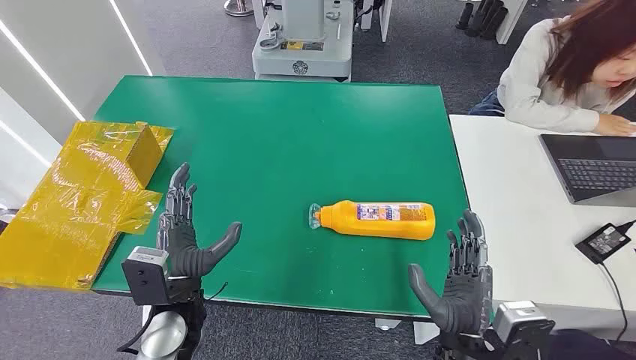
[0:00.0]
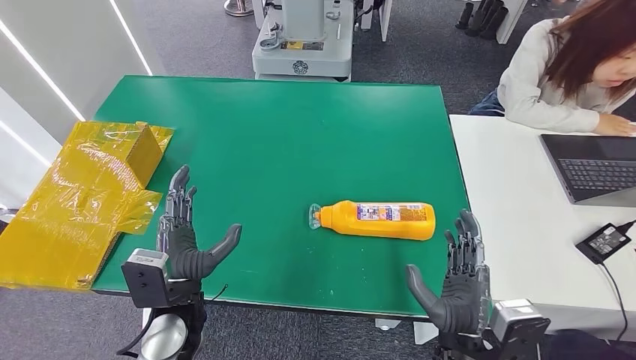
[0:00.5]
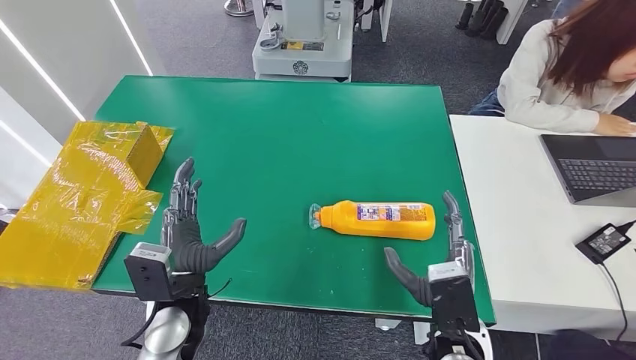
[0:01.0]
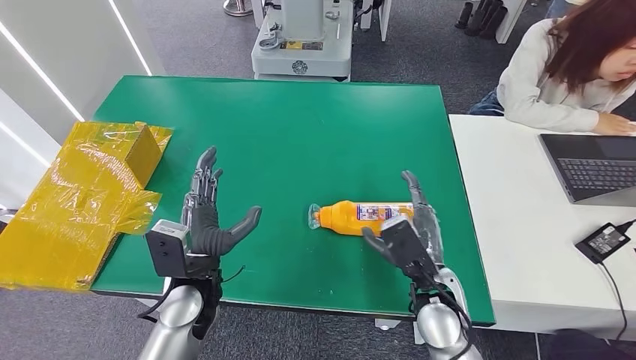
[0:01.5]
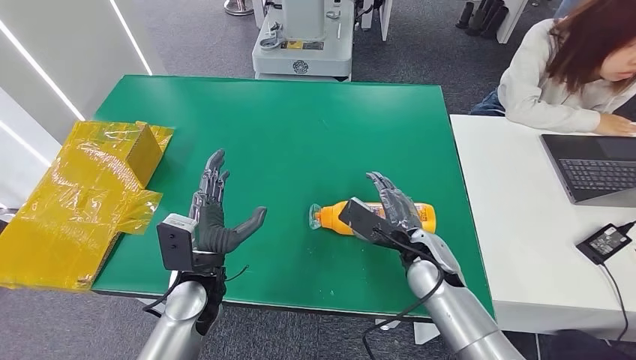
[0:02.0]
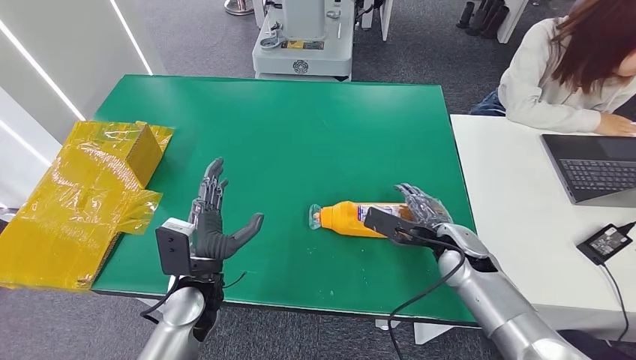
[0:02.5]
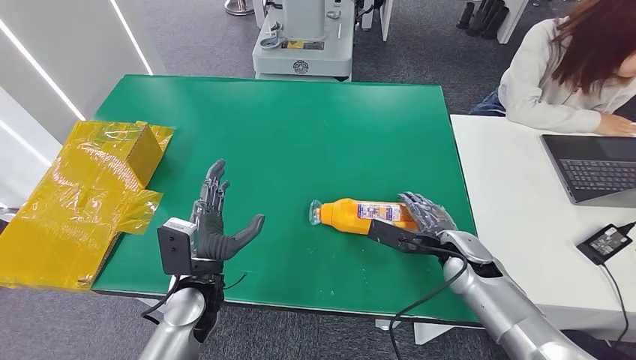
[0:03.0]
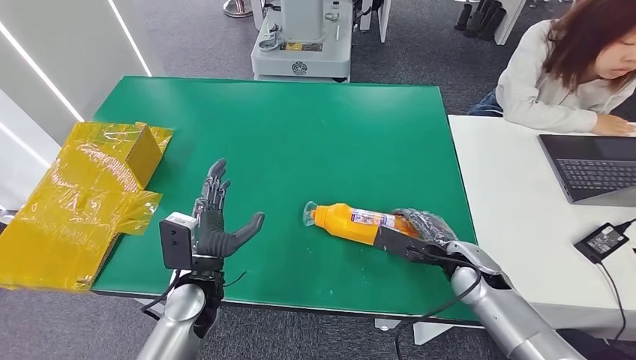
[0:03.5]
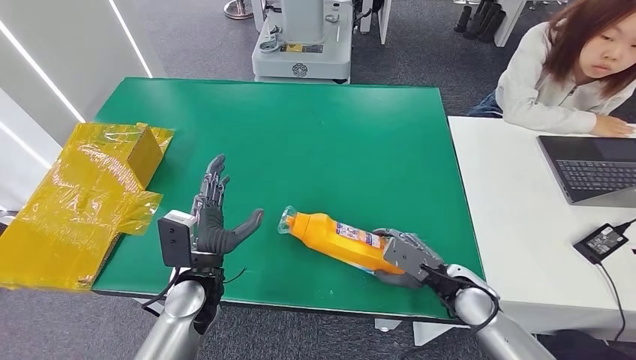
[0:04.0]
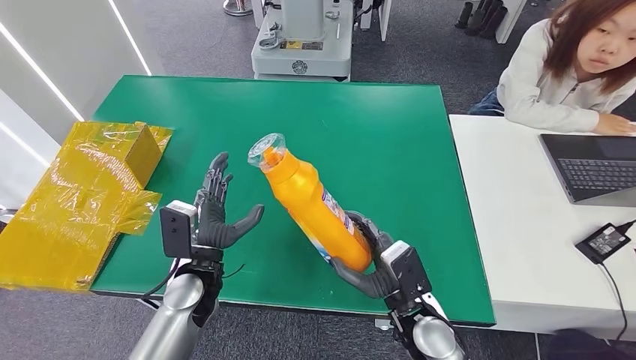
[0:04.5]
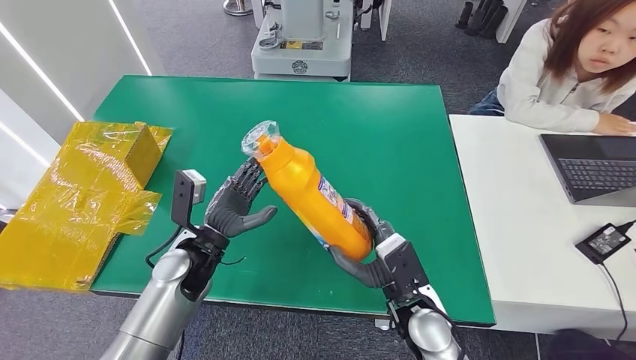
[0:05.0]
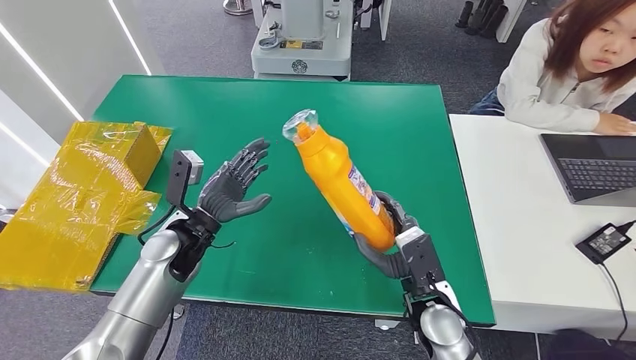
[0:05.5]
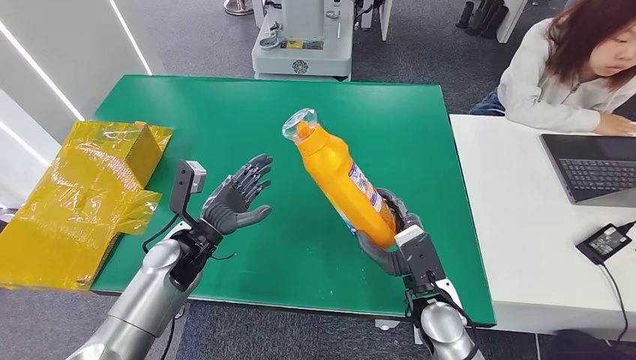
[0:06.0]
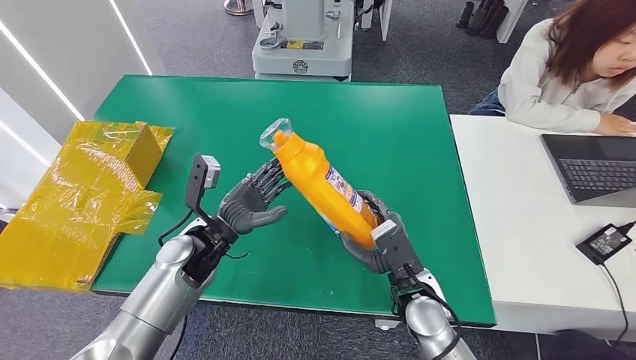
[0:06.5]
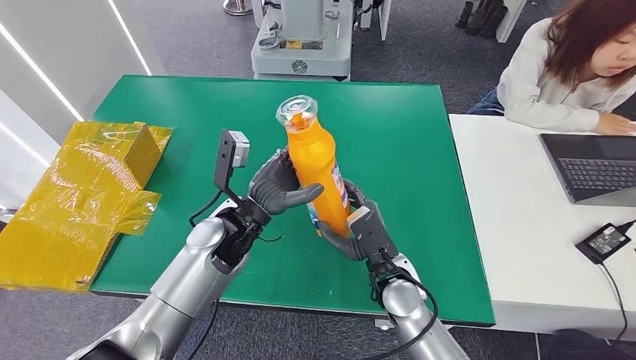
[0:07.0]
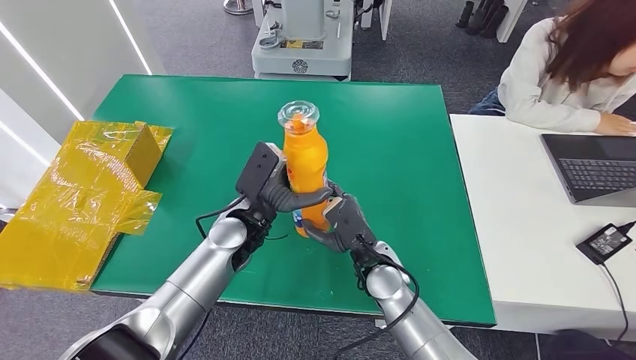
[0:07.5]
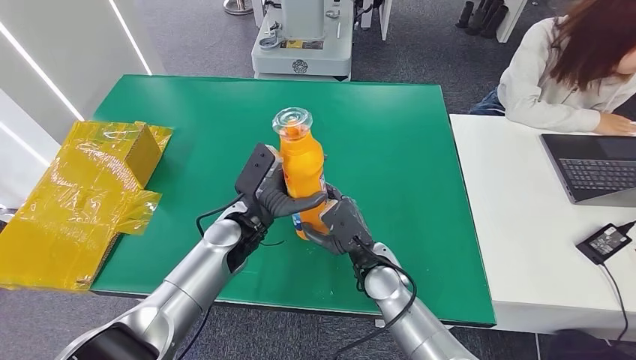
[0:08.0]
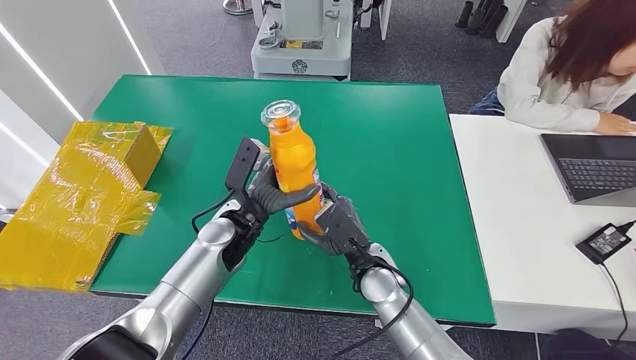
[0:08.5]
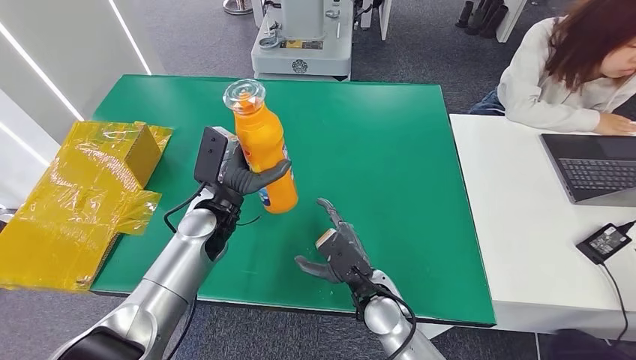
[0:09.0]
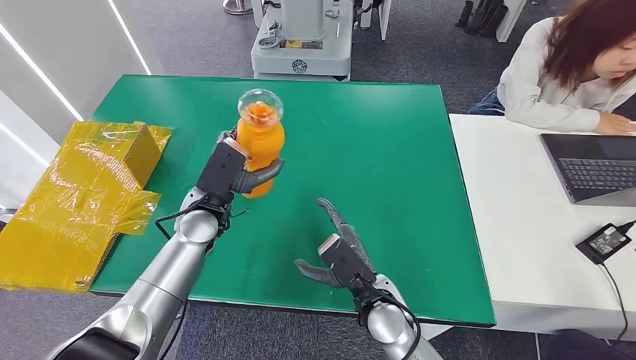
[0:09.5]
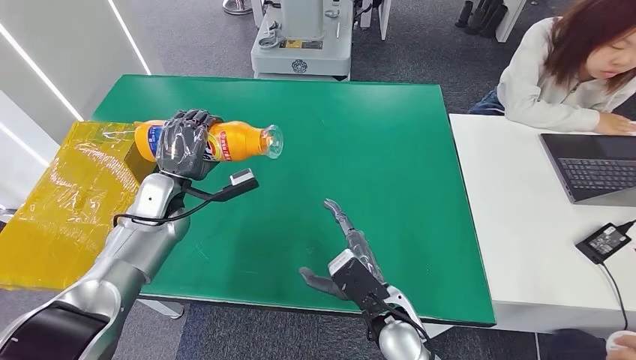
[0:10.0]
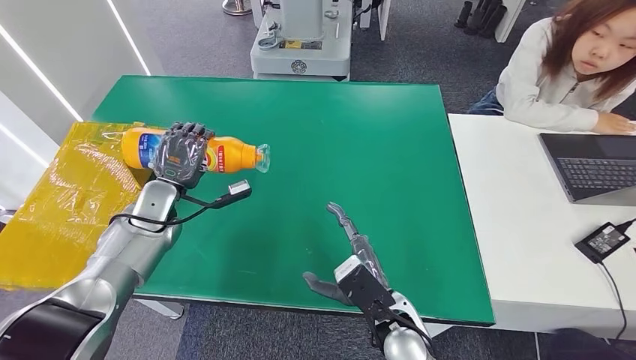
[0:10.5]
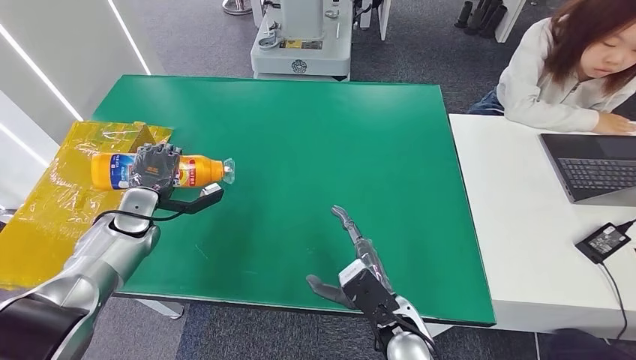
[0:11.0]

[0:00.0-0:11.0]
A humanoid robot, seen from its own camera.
Step, 0:00.0 to 0:05.0: Pick up the bottle from the table.
Step, 0:05.5 to 0:11.0: Turn the bottle to the front side.
0:02.0 to 0:03.5: The right hand travels to the right by roughly 10 cm.
0:03.5 to 0:05.5: The left hand shifts some 10 cm forward. The right hand shifts about 15 cm to the left and backward.
0:05.5 to 0:07.5: The left hand travels to the right by some 10 cm, while the right hand goes roughly 10 cm to the left and forward.
0:07.5 to 0:09.0: The right hand ends up approximately 5 cm from where it was. Meanwhile the left hand is displaced to the left by some 5 cm.
0:09.0 to 0:11.0: The right hand shifts some 5 cm backward. The left hand heads to the left, covering about 20 cm.

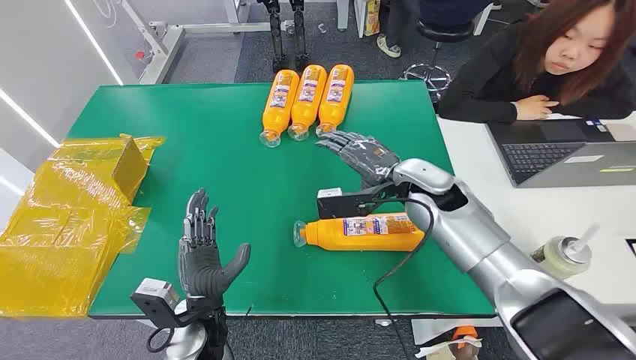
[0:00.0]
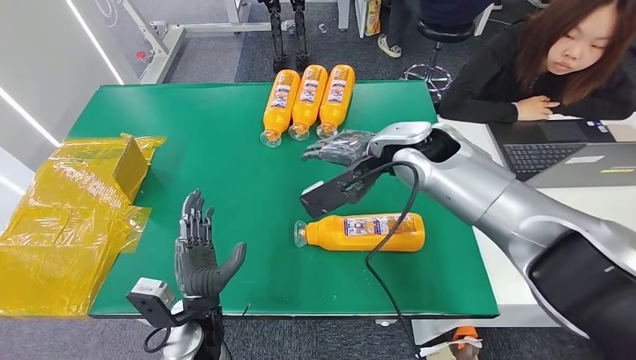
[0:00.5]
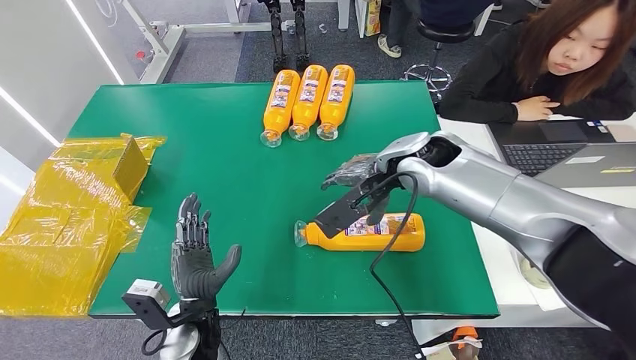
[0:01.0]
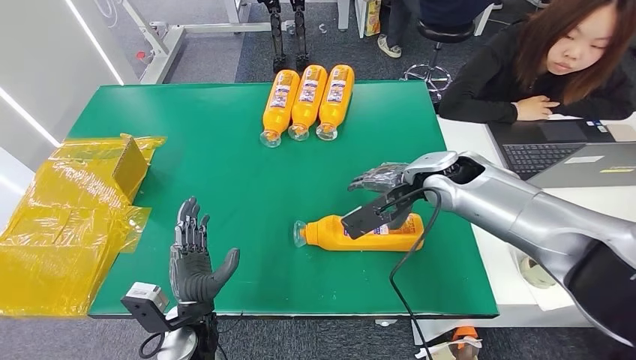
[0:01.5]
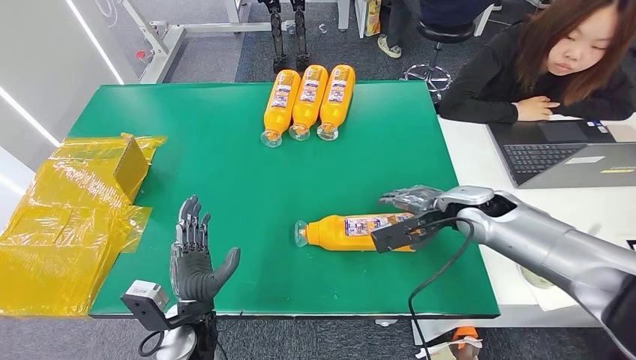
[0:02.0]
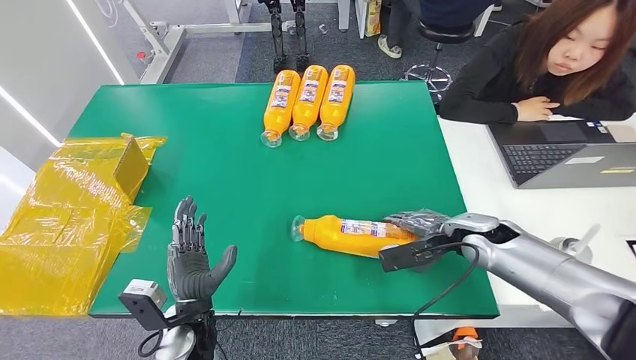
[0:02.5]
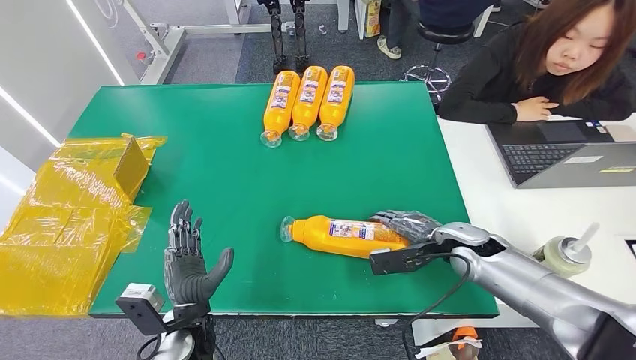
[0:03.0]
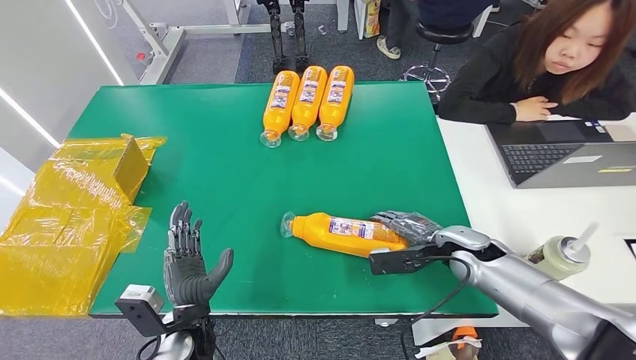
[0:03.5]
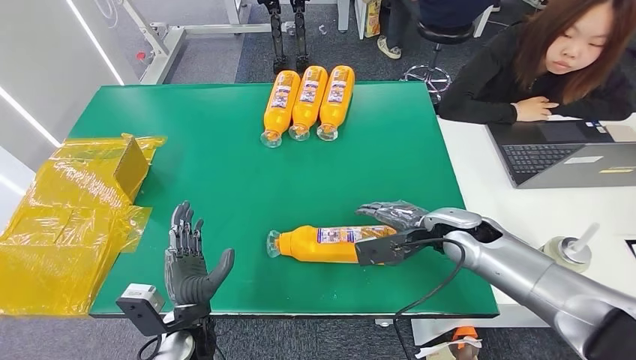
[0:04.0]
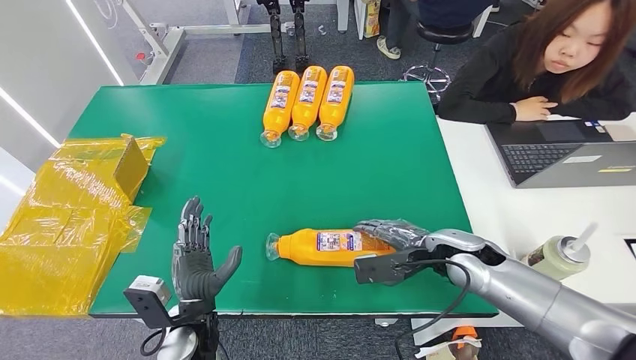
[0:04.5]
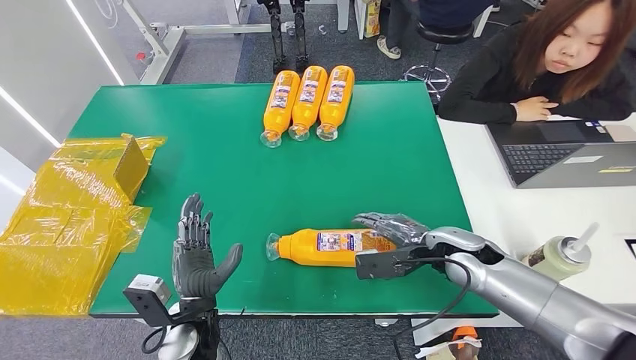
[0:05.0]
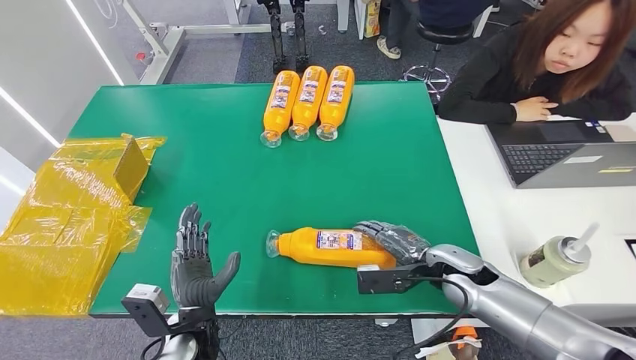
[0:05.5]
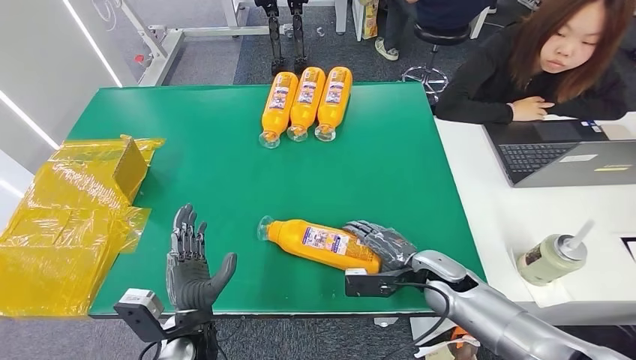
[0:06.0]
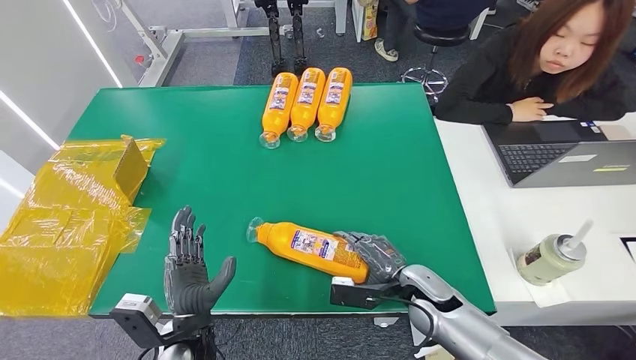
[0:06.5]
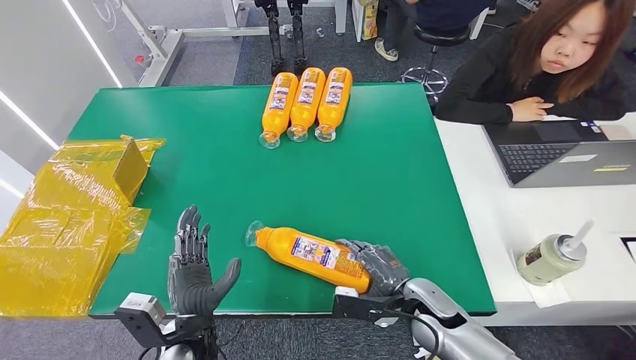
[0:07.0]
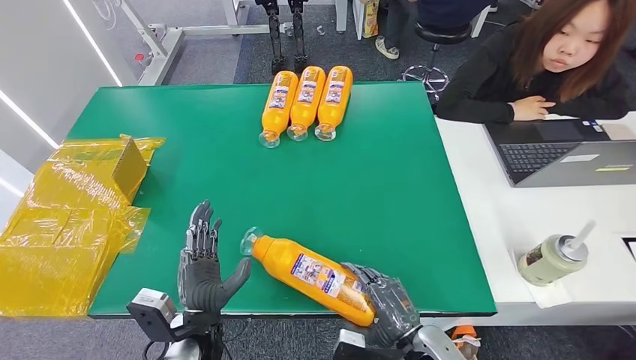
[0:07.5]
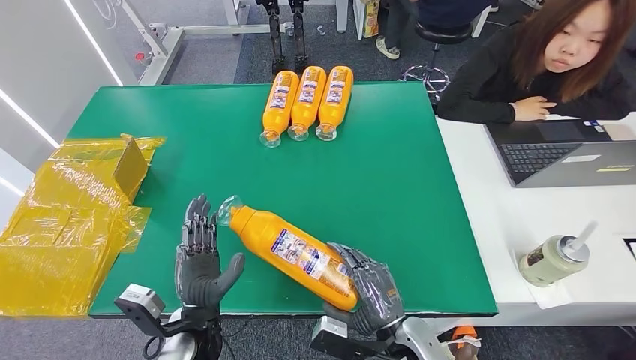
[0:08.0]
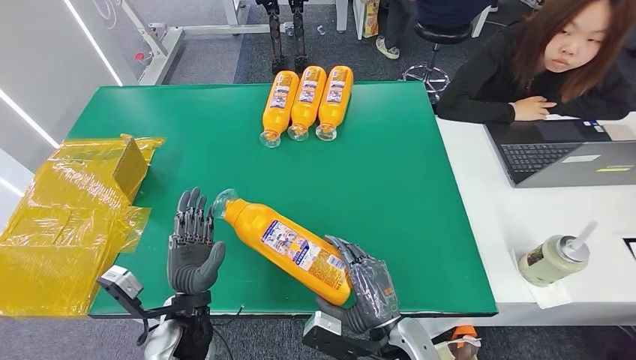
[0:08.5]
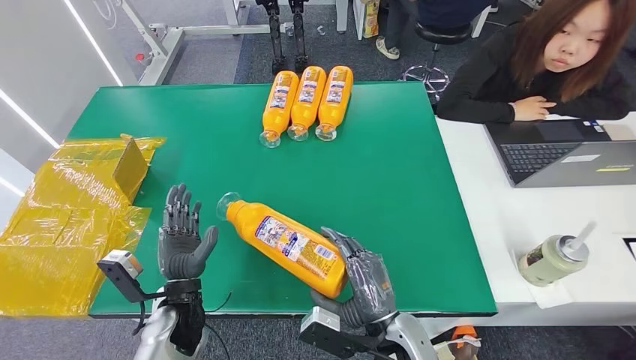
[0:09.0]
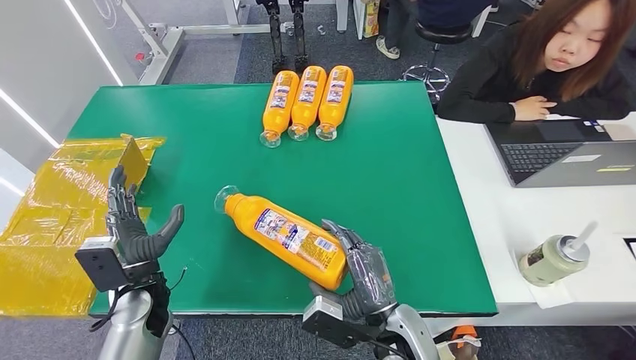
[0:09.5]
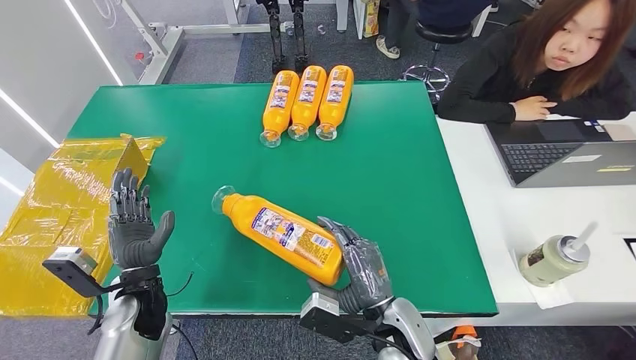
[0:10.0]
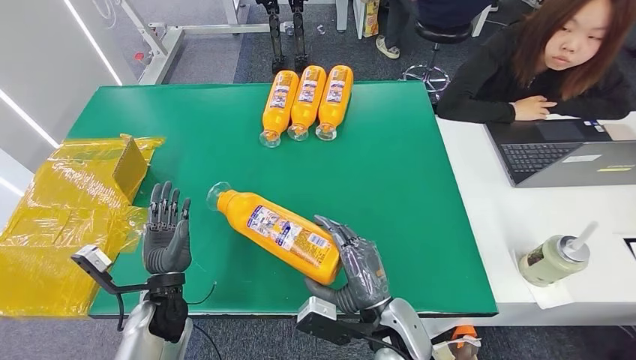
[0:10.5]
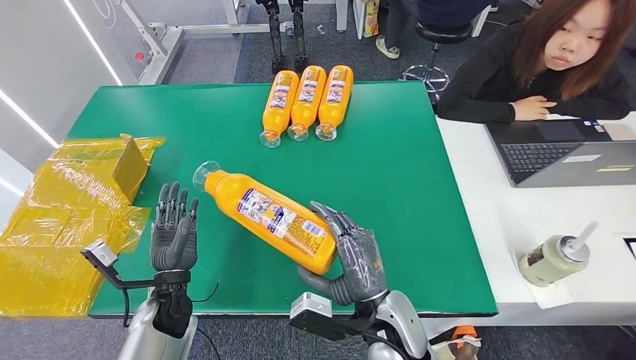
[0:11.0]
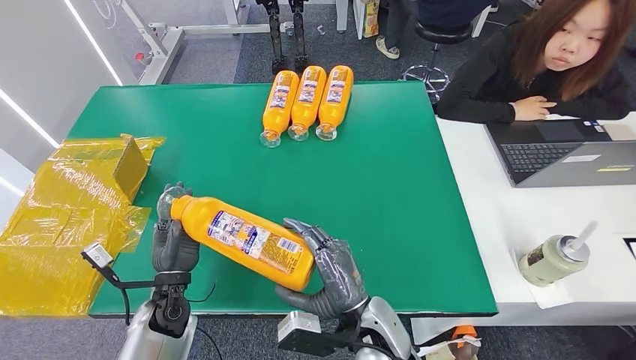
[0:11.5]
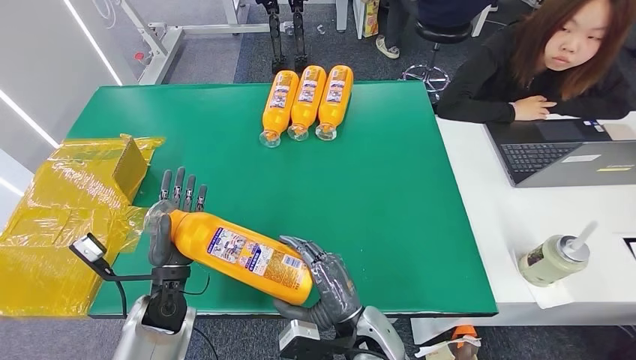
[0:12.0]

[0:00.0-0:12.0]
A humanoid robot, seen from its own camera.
Step, 0:00.0 to 0:08.5: Pick up the bottle from the table.
0:06.0 to 0:08.0: The right hand moves backward and to the left, roughly 15 cm.
0:08.0 to 0:10.0: The left hand goes approximately 15 cm to the left and forward.
